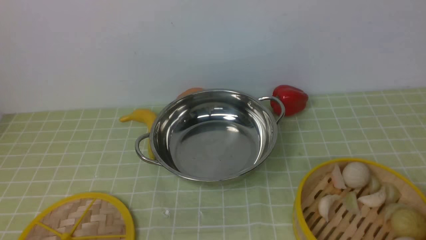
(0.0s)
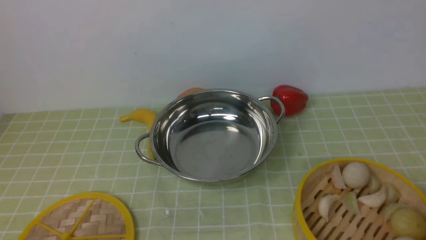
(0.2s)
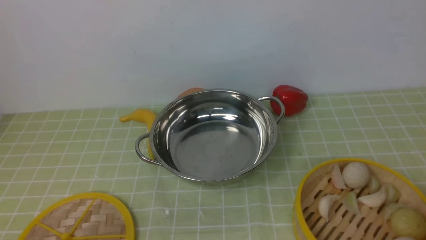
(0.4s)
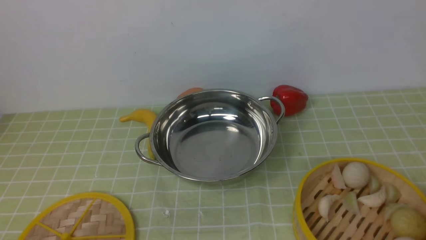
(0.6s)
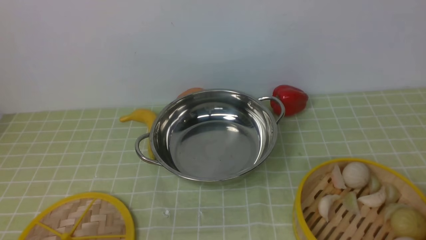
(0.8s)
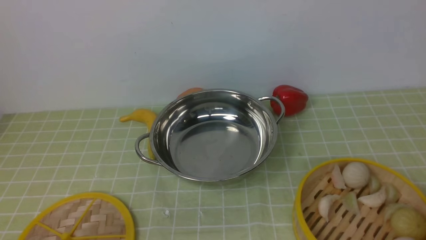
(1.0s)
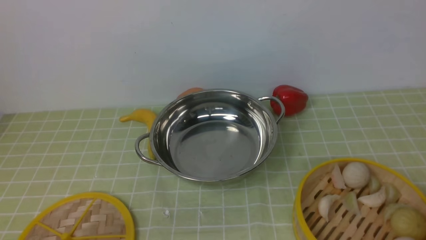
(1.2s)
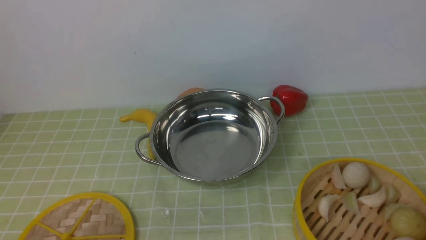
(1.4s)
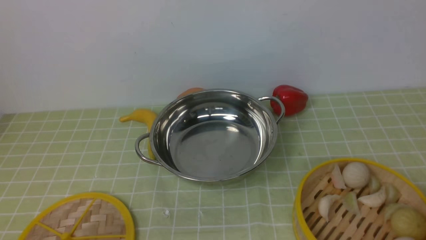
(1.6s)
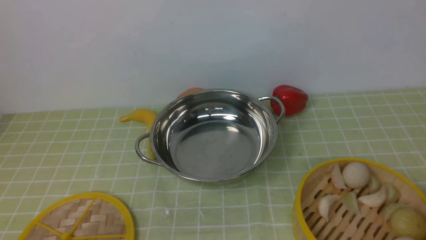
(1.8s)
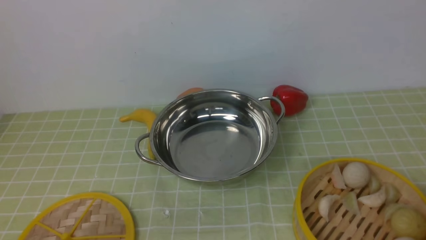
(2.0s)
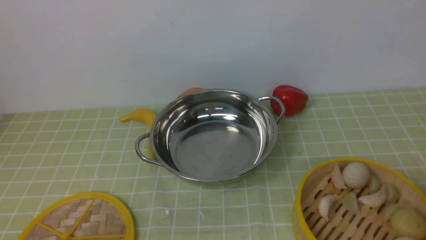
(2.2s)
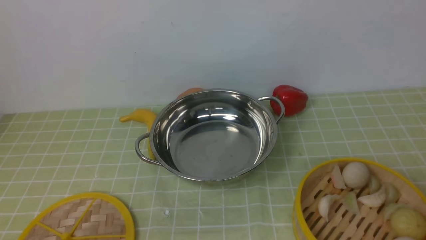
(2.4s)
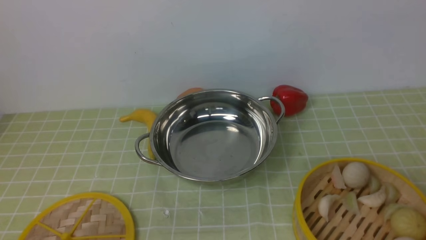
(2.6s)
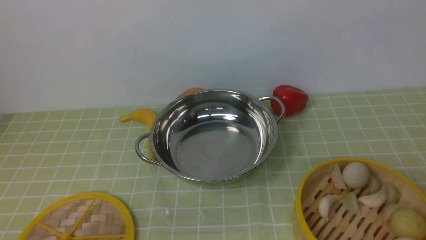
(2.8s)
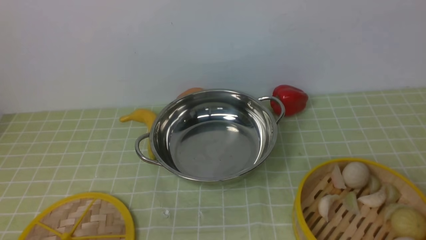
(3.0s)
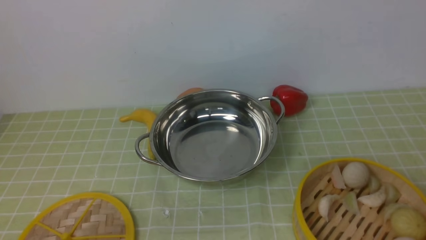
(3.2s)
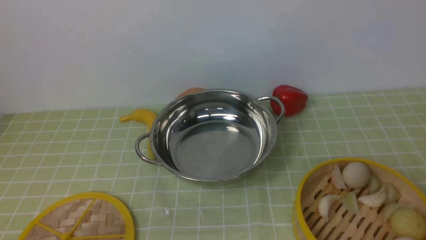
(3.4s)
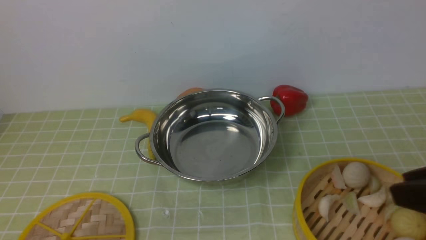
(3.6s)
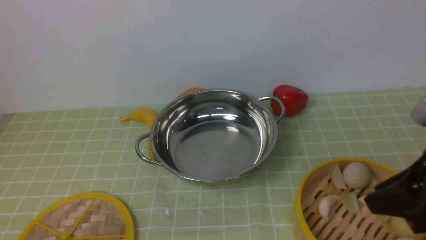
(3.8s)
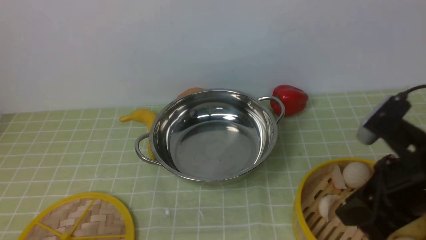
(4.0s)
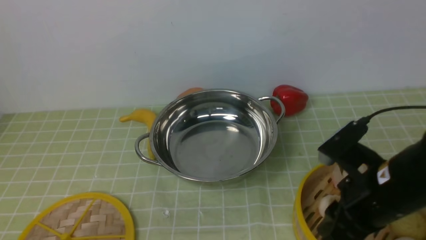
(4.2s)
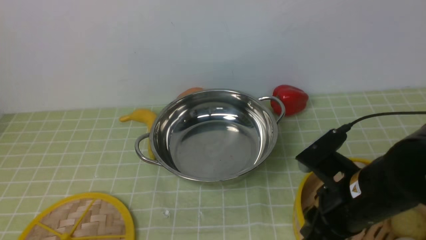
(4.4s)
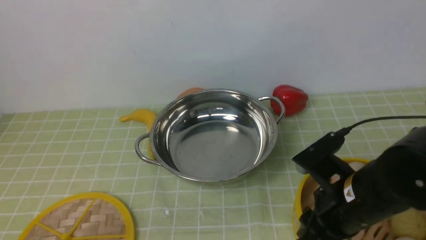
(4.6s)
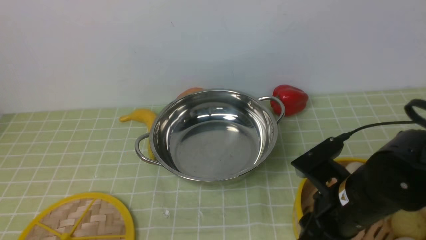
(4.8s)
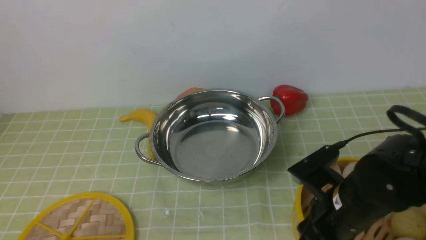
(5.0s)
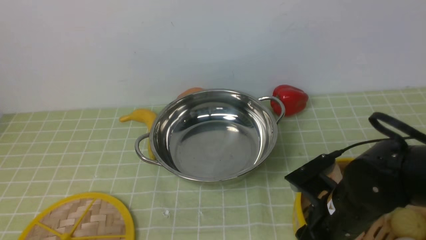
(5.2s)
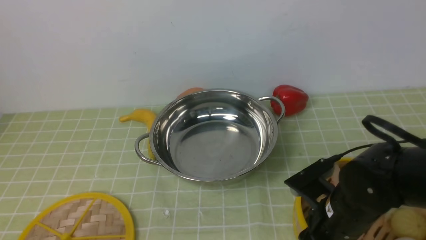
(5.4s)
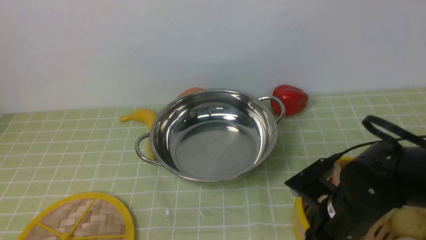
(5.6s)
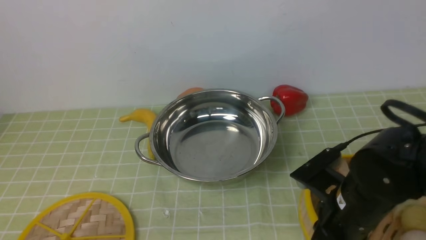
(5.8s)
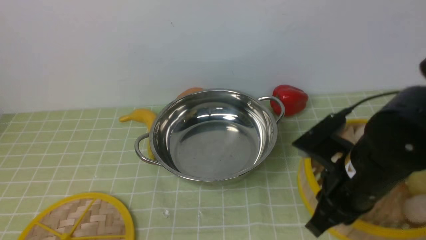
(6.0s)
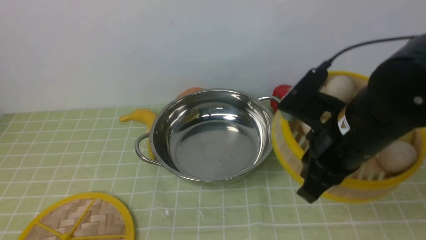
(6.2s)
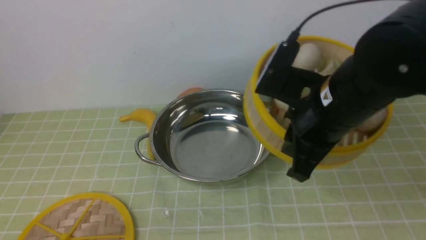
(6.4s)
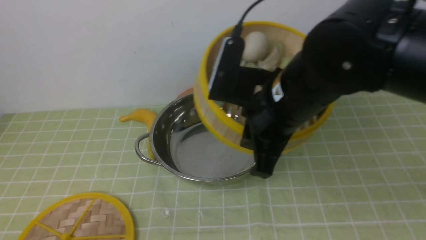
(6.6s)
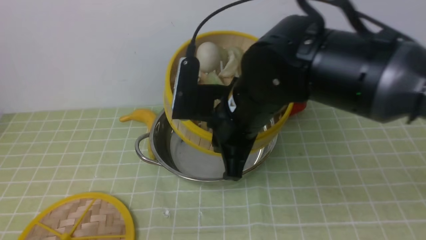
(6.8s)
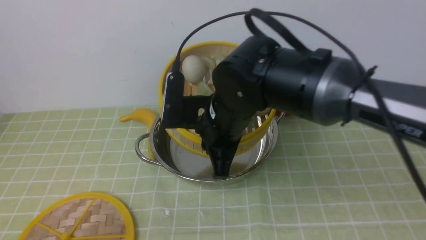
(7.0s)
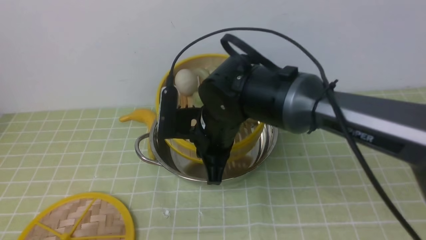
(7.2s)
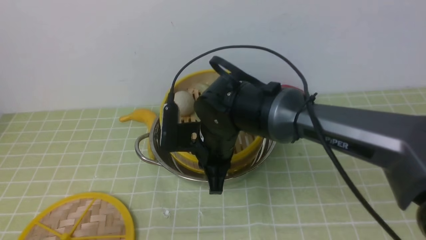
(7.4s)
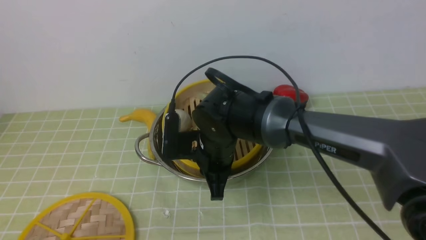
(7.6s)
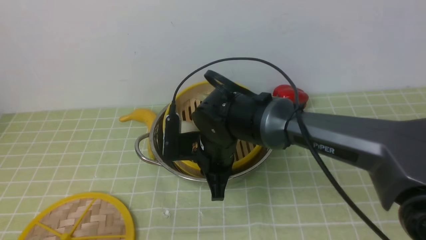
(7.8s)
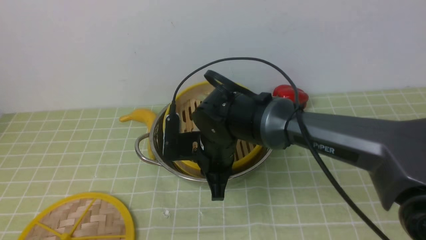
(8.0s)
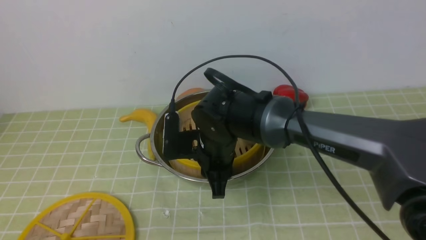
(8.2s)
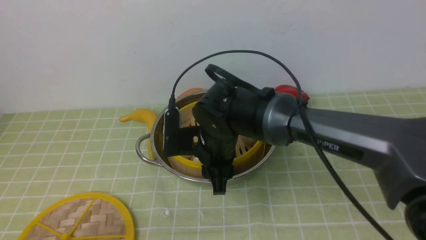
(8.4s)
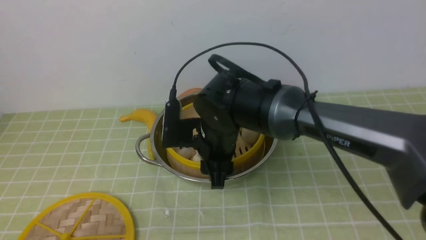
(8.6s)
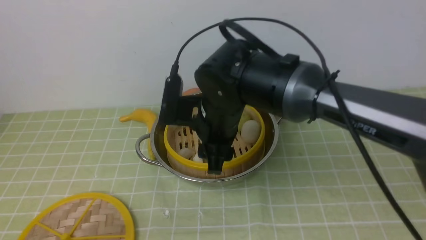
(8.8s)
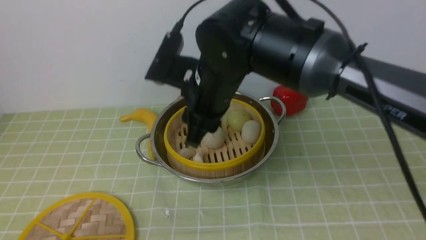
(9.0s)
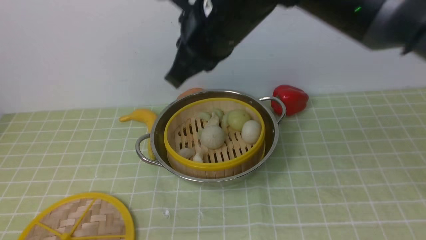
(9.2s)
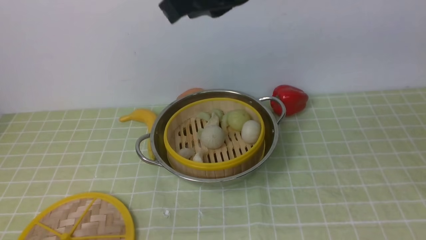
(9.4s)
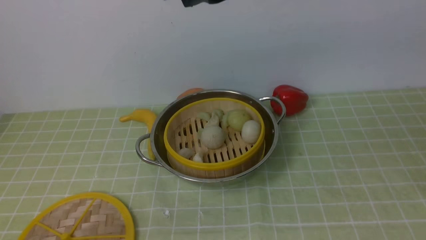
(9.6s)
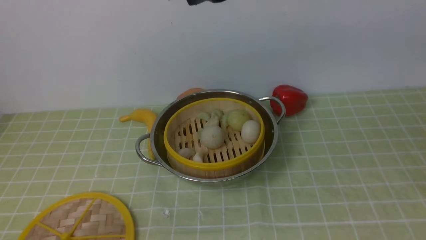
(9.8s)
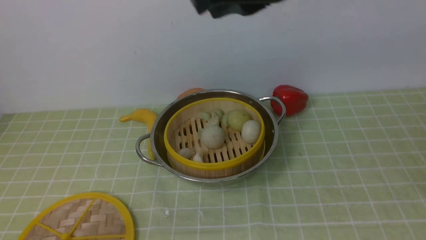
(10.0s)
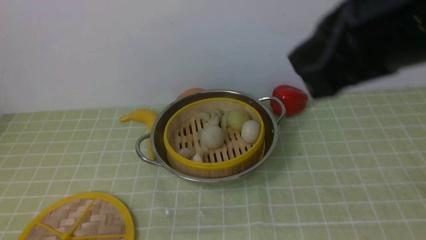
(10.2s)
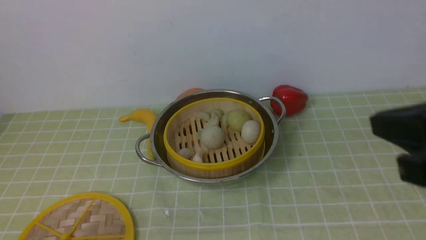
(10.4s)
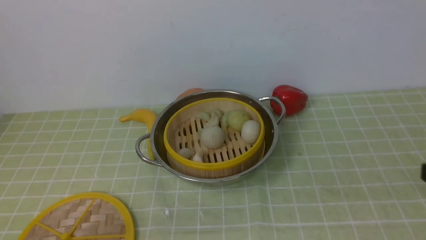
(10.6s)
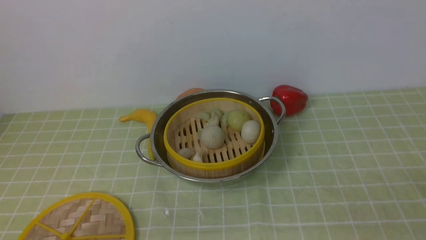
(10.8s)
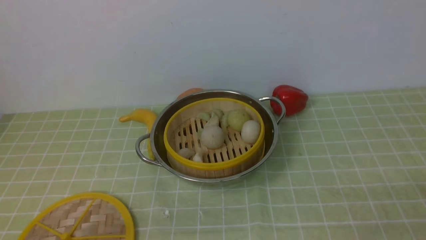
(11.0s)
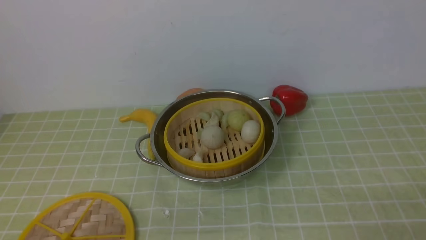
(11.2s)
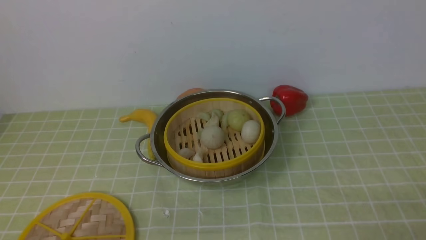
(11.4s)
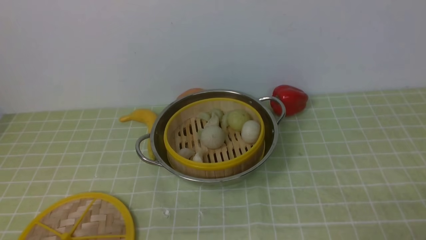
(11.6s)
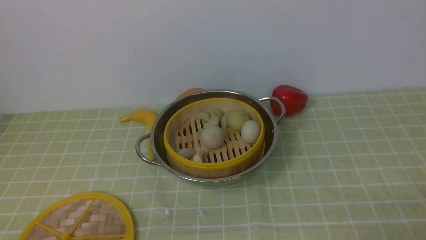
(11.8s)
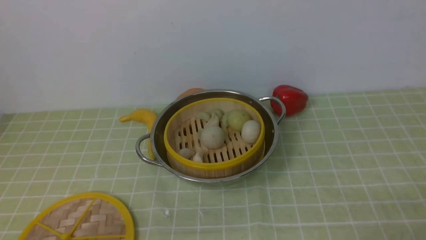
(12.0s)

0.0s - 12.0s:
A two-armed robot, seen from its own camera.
Task of the whole recording: place the steamer in the pot on the green tablecloth, and put the lid on the steamer.
Step, 0.0s - 6.2s: use the right arm to lift the steamer closest to it.
Step, 6.4s - 9.2s: use the right arm to put the steamer into the iron steamer pot in the middle.
3.0s - 4.4s: The right gripper is displaced forward, to the left and downward by roughly 25 cm.
4.4s - 6.0s: The right gripper closes.
6.0s - 7.6s: The right gripper heads to the left and forward, covering about 20 cm.
7.6s - 9.0s: The right gripper heads upward, covering approximately 10 cm, and opens its fingers.
9.0s - 10.4s: The right gripper is displaced to the right, backward and upward by roughly 30 cm, and closes.
10.4s - 12.0s: The right gripper goes roughly 25 cm downward, to the right and backward.

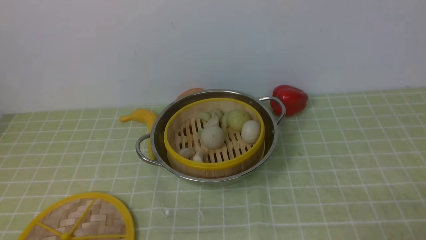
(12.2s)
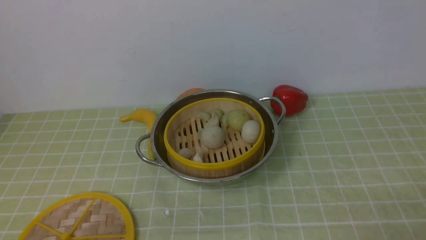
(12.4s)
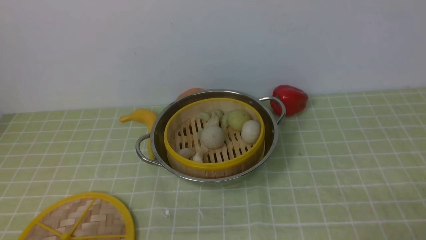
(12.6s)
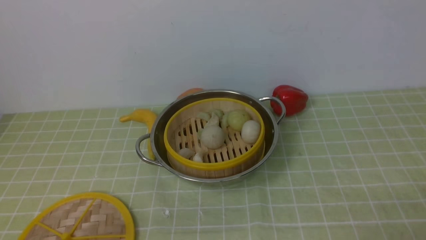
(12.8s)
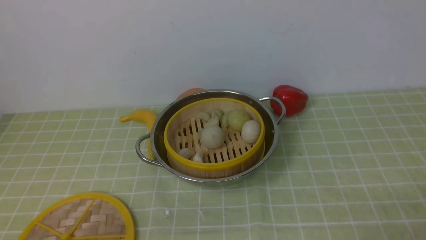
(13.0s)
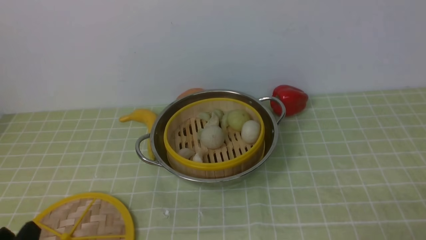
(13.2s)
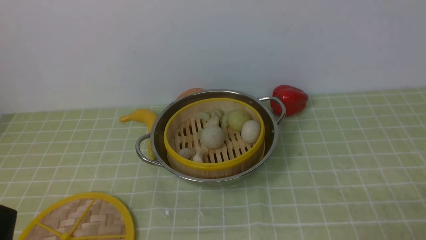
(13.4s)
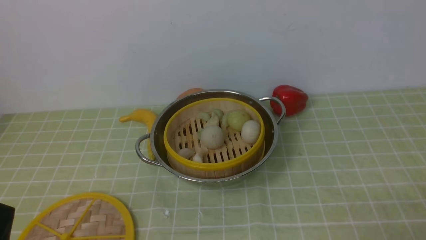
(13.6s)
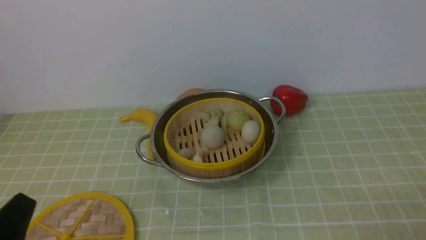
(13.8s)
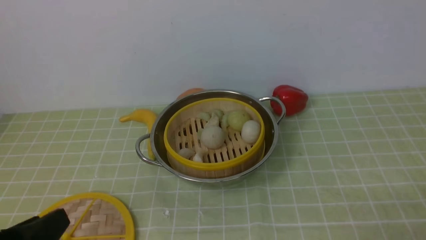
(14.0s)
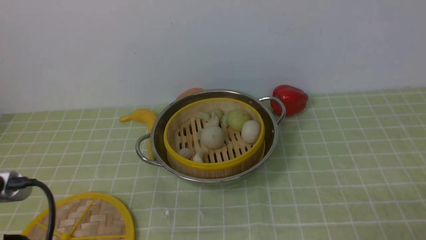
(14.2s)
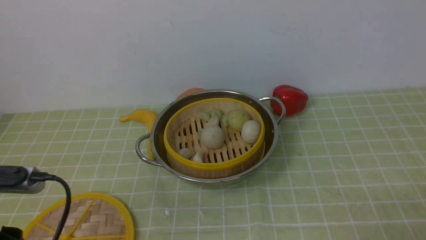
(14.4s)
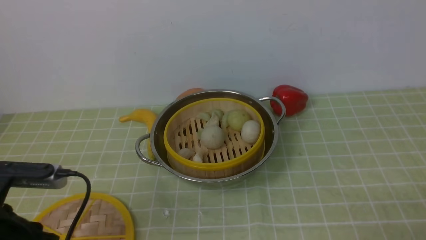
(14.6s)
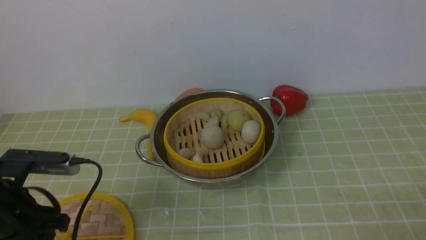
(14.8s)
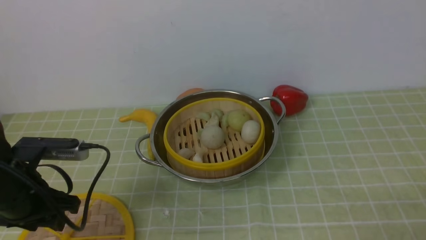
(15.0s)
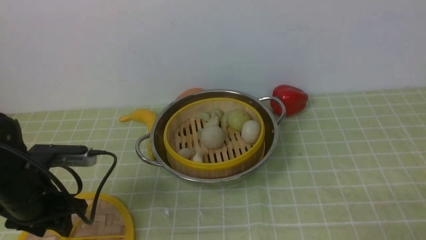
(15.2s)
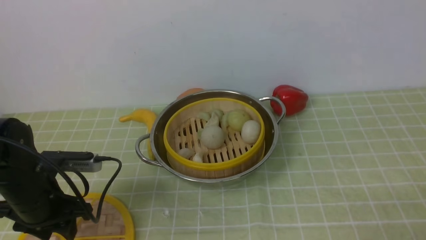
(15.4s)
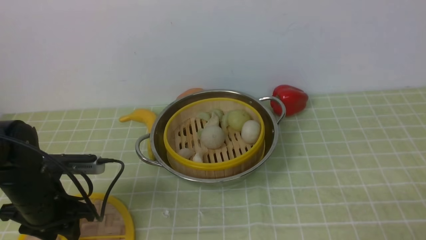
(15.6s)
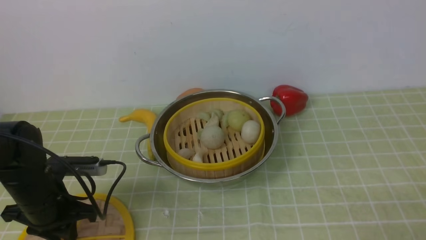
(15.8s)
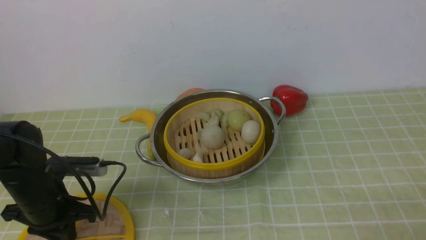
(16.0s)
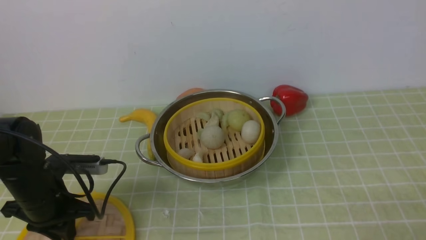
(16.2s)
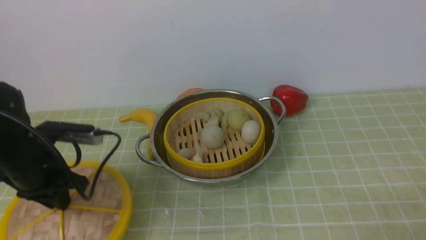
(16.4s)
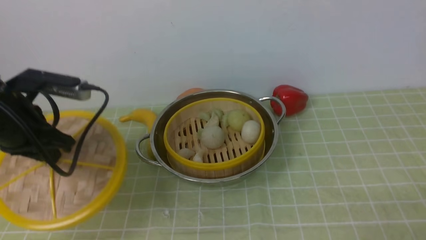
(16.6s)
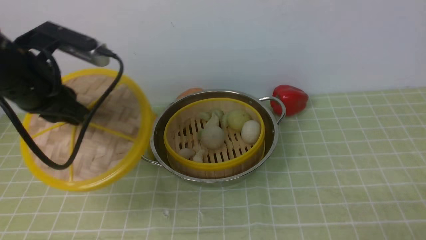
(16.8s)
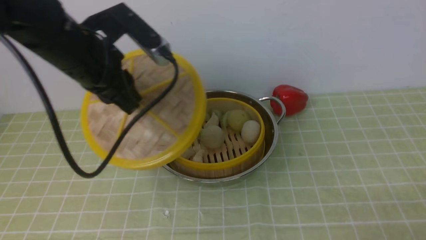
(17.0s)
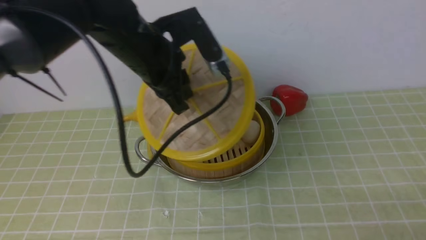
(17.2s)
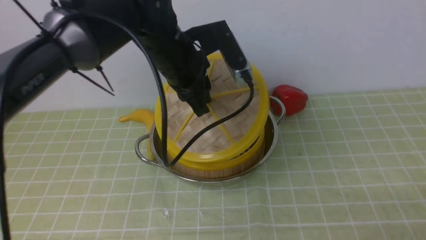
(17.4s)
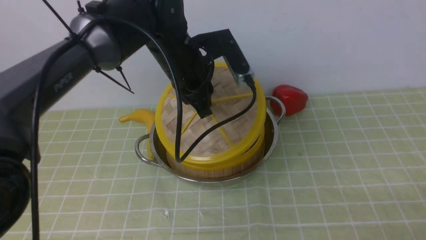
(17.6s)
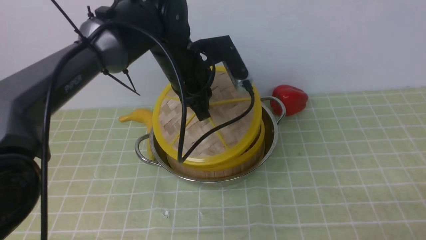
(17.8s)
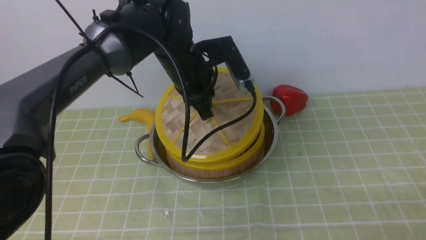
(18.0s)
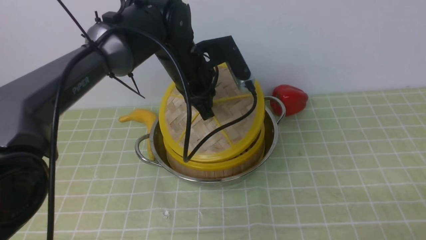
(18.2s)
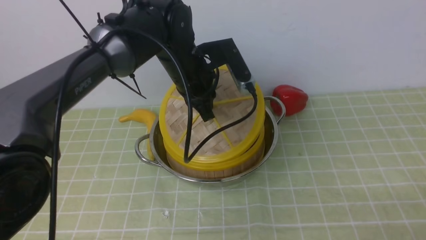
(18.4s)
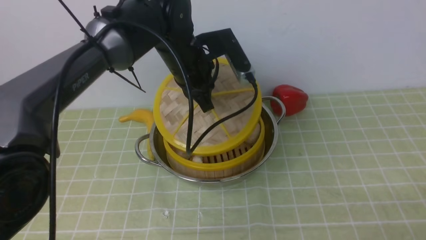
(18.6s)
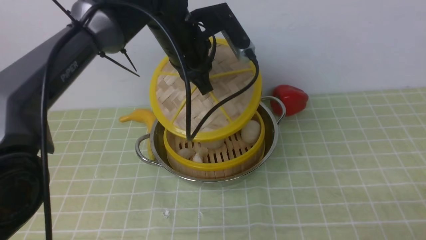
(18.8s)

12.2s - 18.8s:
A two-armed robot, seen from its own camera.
Task of the whole recording: place the steamer in the pot on the green tablecloth, and put the lid on the steamer.
Step, 12.2s - 16.6s: use the left arm to lift the lid of the steamer.
12.2s - 13.8s: The left gripper is displaced upward by some 5 cm.
13.8s - 15.4s: The left gripper heads forward, covering some 20 cm.
15.4s - 17.2s: The left gripper goes approximately 25 cm upward, to the right and forward, and closes up.
17.2s - 18.8s: The left gripper travels to the right and forward by roughly 10 cm.
